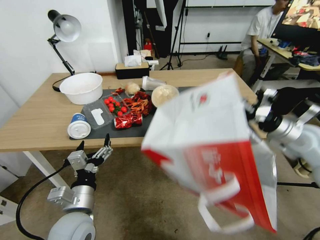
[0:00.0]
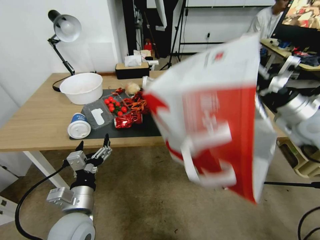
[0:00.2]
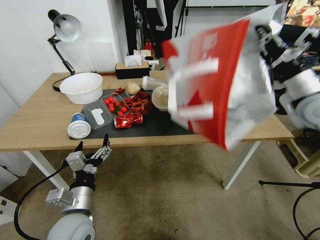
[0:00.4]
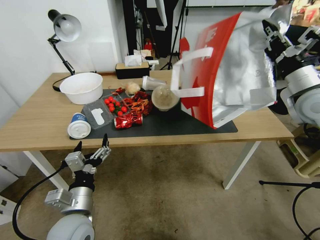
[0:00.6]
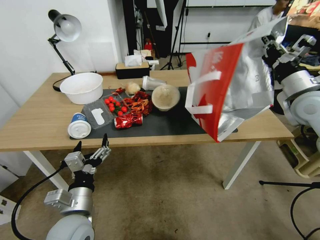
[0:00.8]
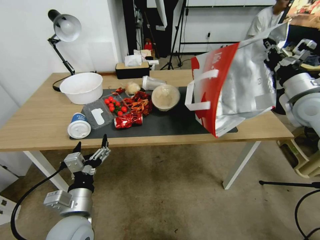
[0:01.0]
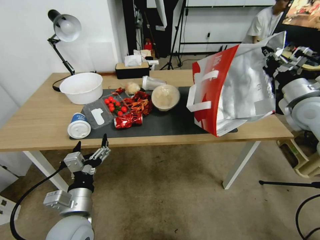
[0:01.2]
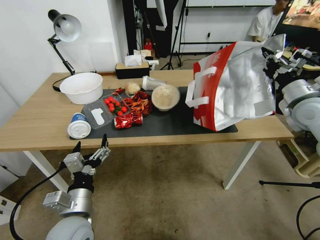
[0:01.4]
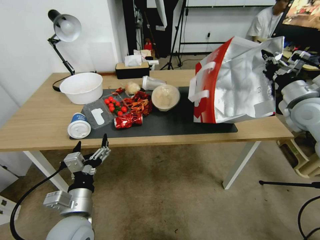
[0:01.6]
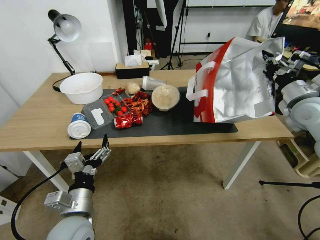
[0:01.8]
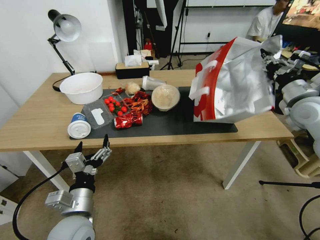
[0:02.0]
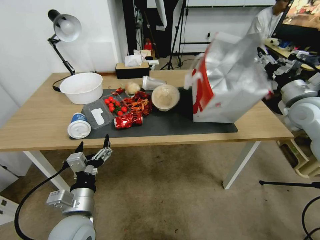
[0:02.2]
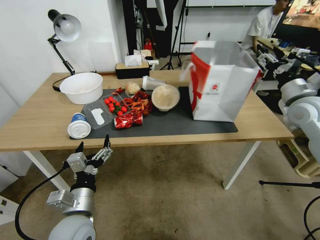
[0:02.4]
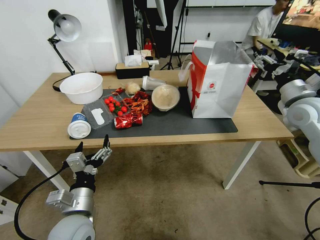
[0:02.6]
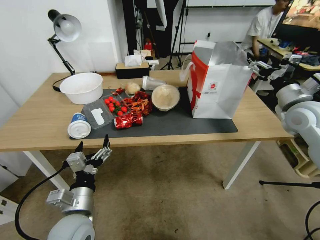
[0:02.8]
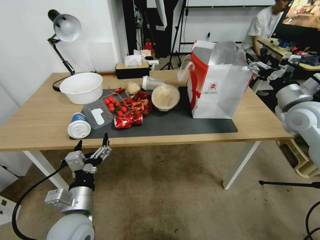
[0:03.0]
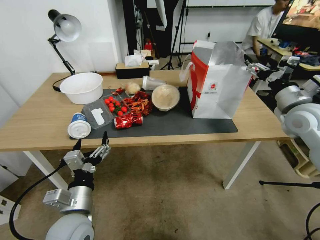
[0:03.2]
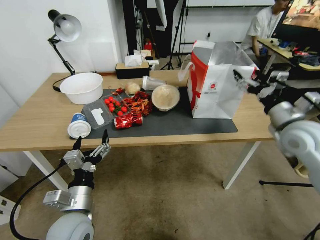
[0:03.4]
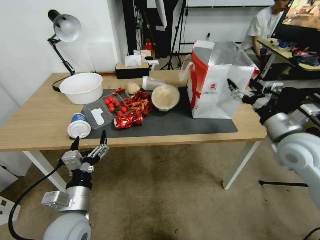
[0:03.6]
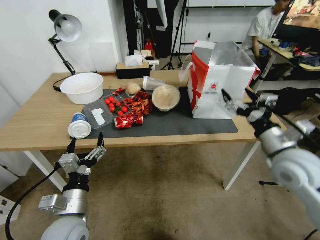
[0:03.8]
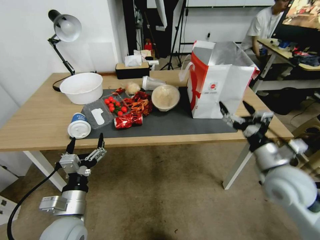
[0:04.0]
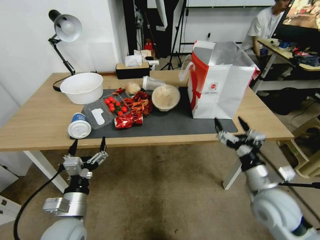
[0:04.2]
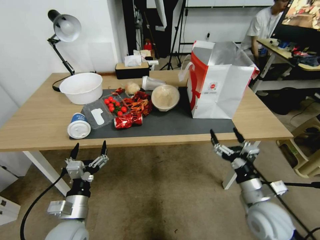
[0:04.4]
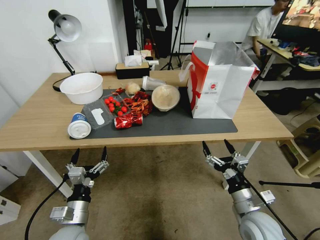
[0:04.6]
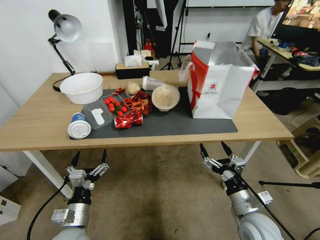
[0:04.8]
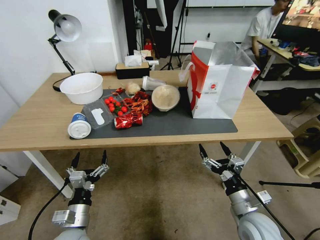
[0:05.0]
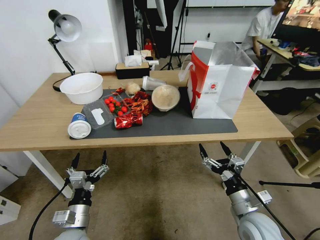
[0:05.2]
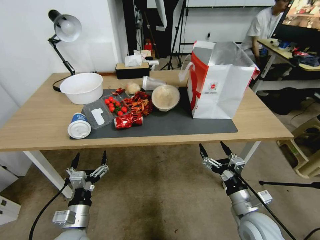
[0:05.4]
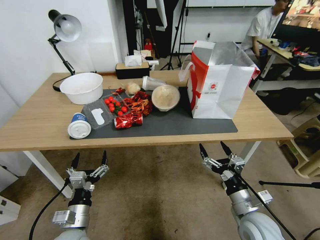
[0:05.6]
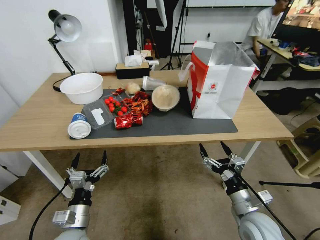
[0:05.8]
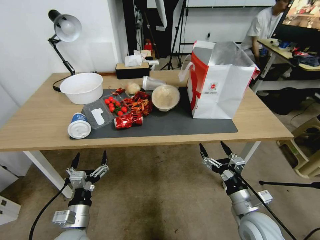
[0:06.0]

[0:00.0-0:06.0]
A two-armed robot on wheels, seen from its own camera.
Task of the whole recording: Pick up the food delivery bag from the floor and place it on the table.
0:00.0 to 0:01.6: The right gripper shifts by approximately 5 cm.
0:01.6 to 0:03.0: The right gripper opens.
0:03.0 to 0:04.4: The right gripper shifts some 30 cm backward, downward and to the left. The left gripper heads downward, covering roughly 5 cm.
0:04.4 to 0:06.0: The right gripper ends up approximately 5 cm from where it was.
